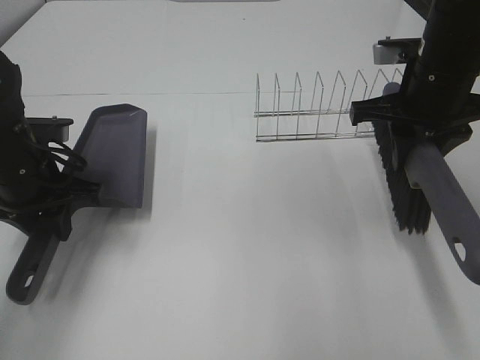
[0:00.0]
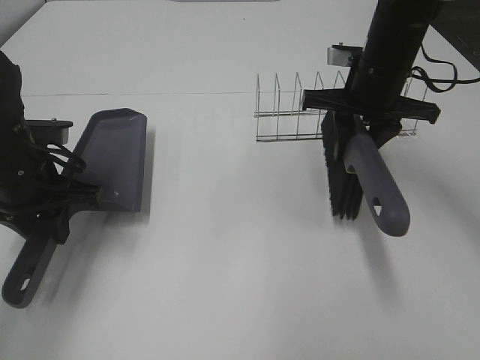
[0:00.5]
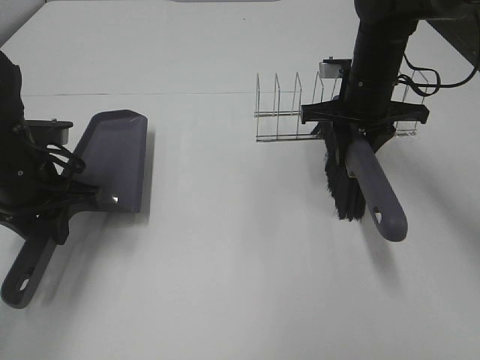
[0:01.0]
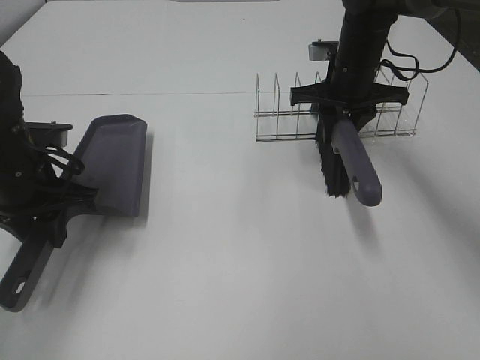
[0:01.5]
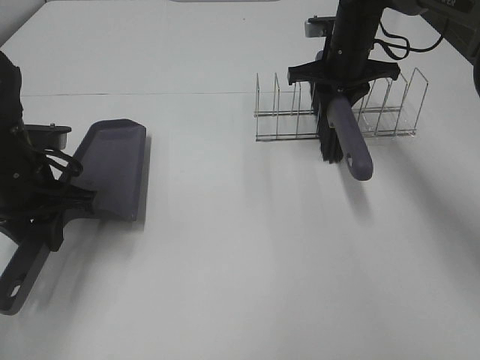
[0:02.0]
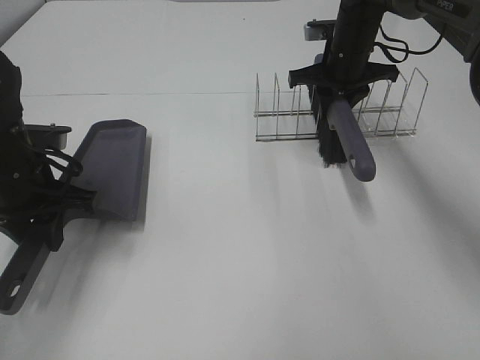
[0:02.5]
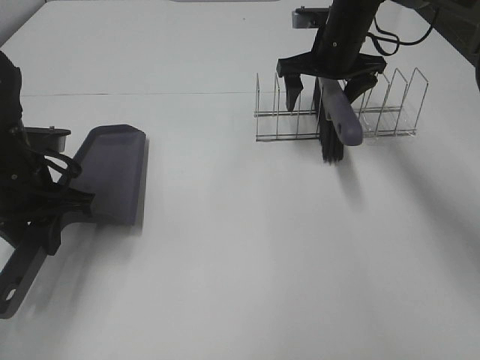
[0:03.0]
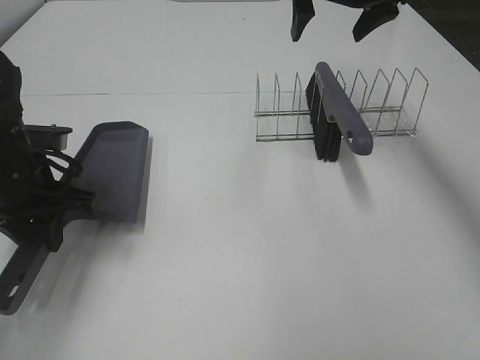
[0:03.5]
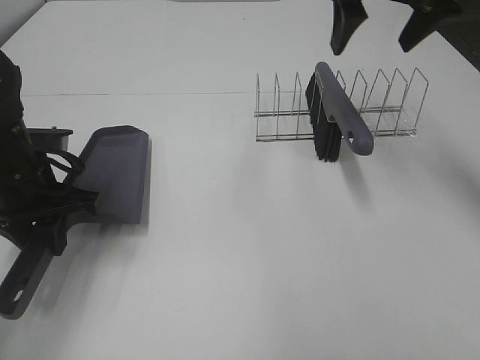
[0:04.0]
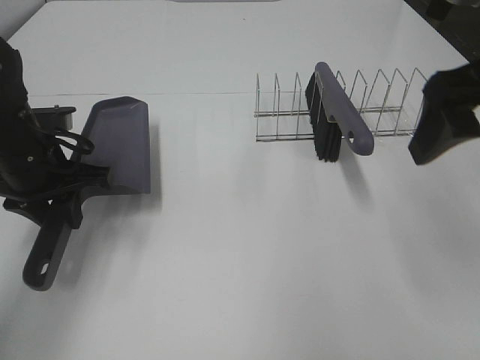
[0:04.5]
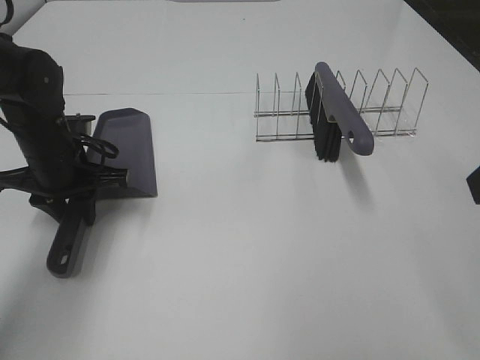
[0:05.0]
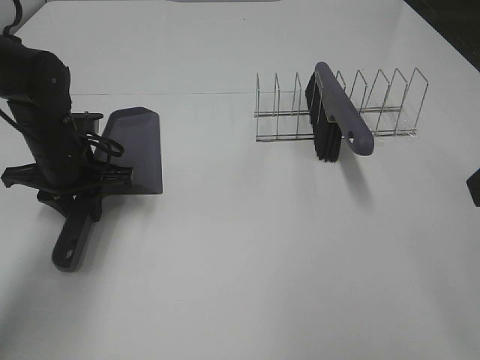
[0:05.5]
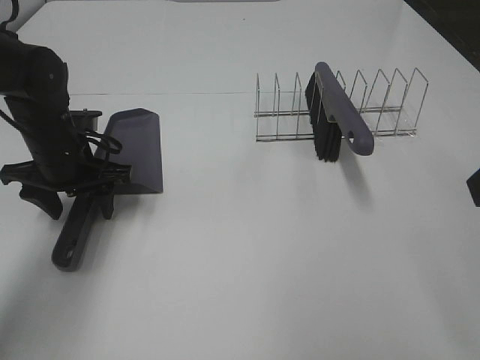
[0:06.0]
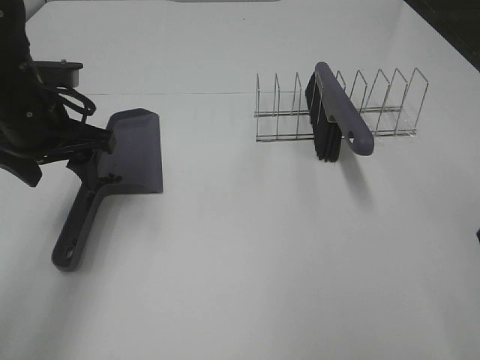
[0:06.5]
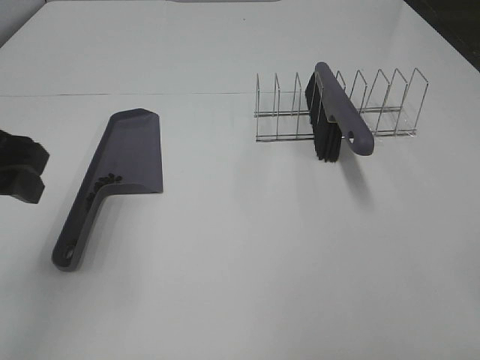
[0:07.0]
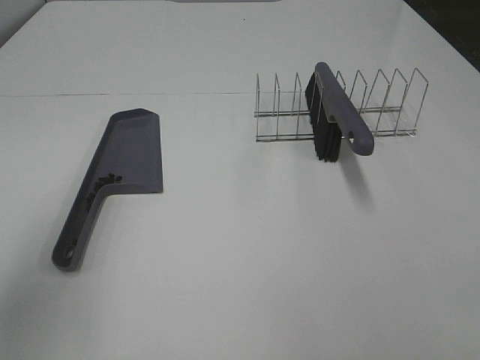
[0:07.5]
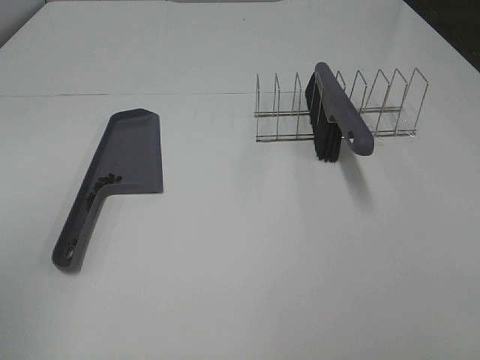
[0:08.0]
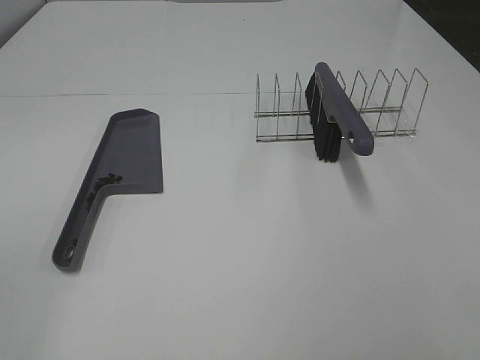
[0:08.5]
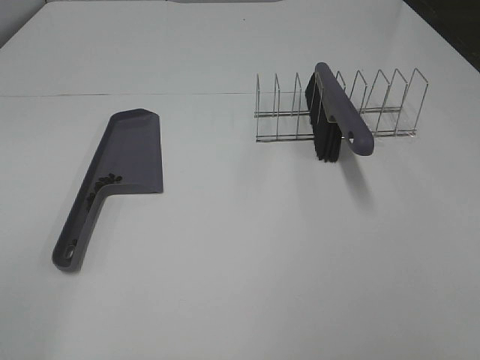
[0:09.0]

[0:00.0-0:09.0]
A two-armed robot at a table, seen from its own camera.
Task of the whole recording: Sweep Coffee Bean.
Step, 0:00.0 to 0:03.0: Right hand:place the broom on the rack.
Step, 0:03.5 to 0:06.0: Left hand:place the dustpan on the table.
0:00.0 to 0:02.0: The right gripper travels forward by some 15 cm.
0:02.0 to 0:04.5: The right gripper moves backward and upward, roughly 30 cm, and opens its fingers.
0:04.5 to 0:07.0: The right gripper heads backward, covering roughly 15 cm; the left gripper shifts about 15 cm upward and backward, and opens up.
0:07.0 to 0:09.0: The left gripper is displaced backward by roughly 20 cm.

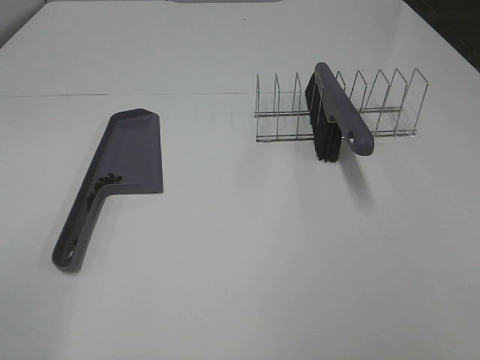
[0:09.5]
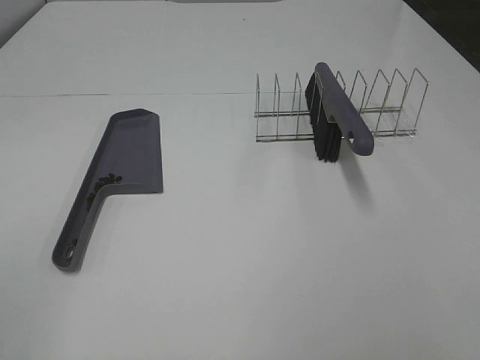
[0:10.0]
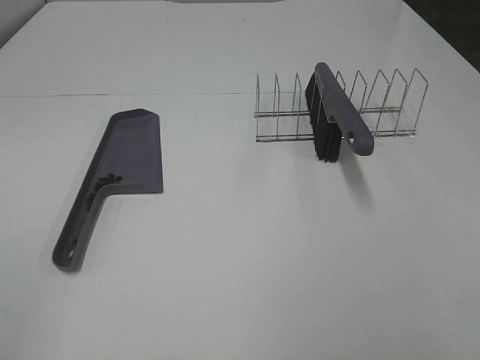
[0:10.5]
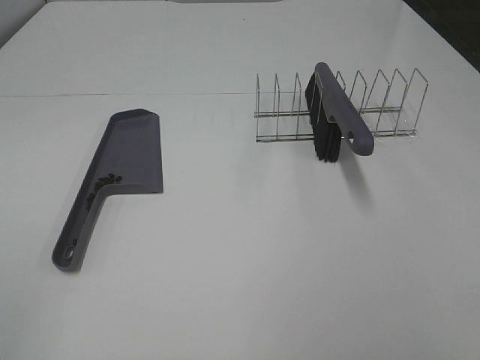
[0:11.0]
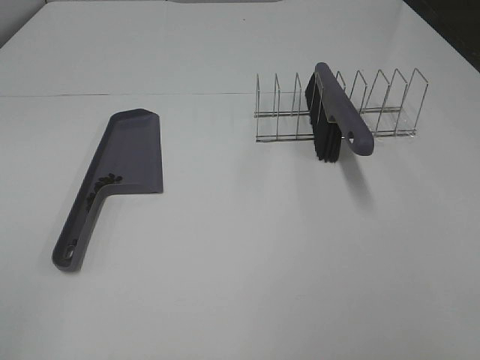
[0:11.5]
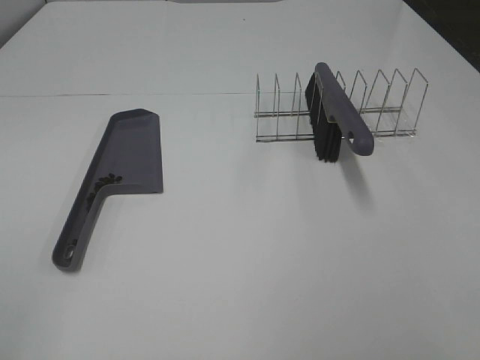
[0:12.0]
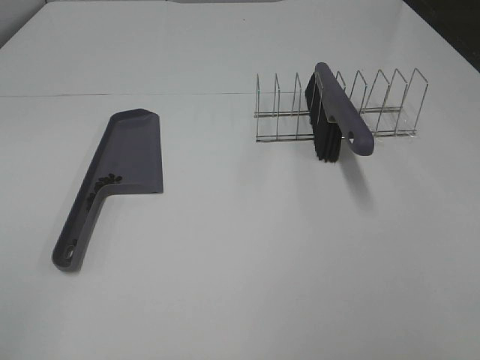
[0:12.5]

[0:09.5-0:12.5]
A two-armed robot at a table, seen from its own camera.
Task of the whole recording: Sweep Coffee Bean.
0:11.0 to 0:12.5: Neither gripper changes place.
